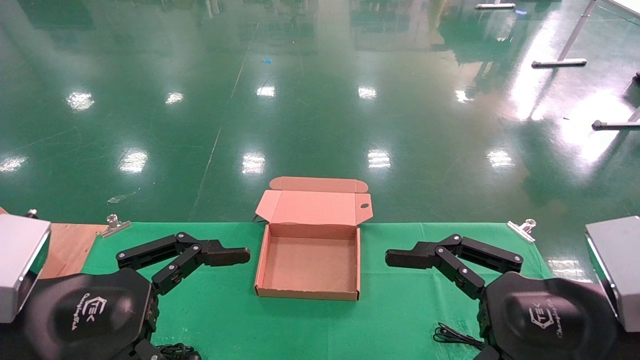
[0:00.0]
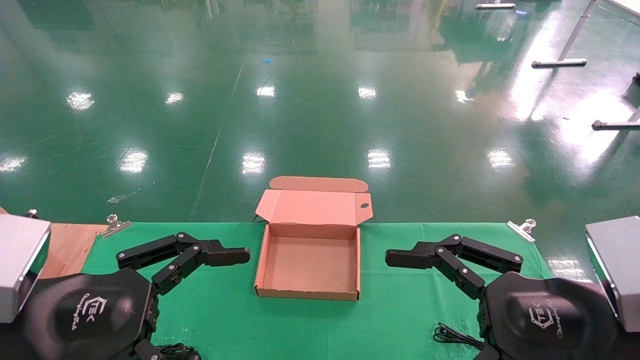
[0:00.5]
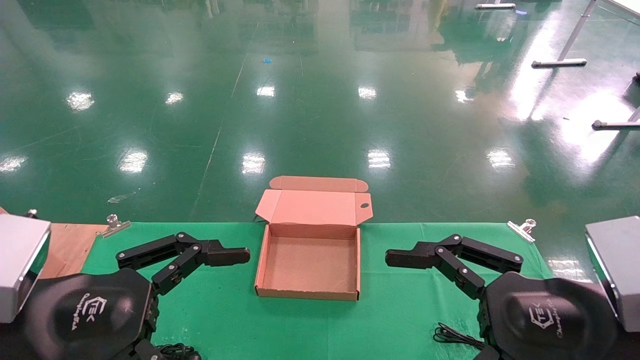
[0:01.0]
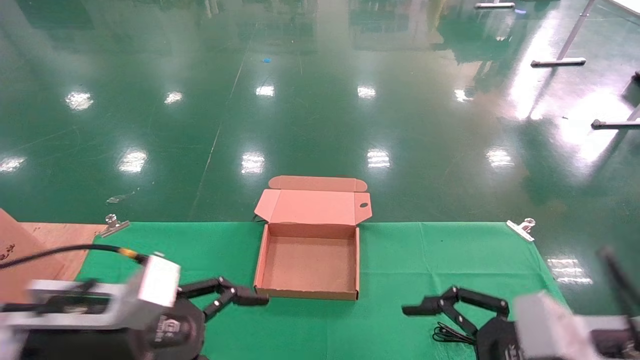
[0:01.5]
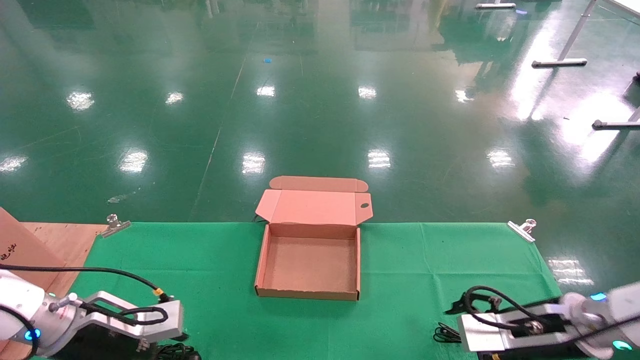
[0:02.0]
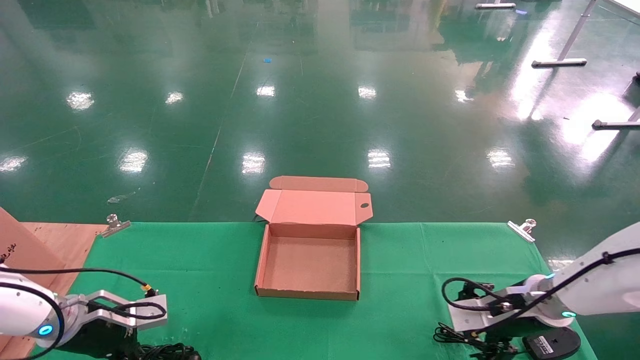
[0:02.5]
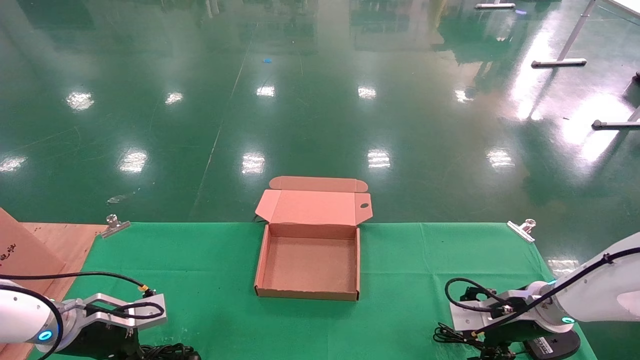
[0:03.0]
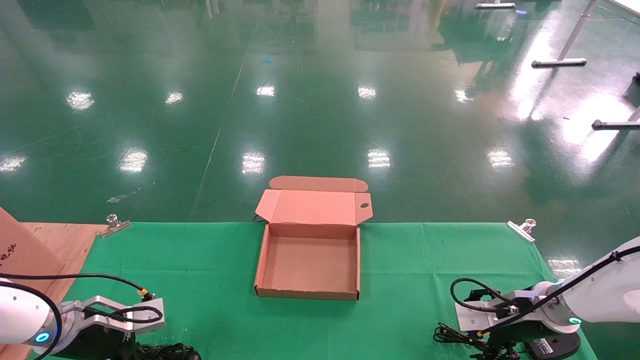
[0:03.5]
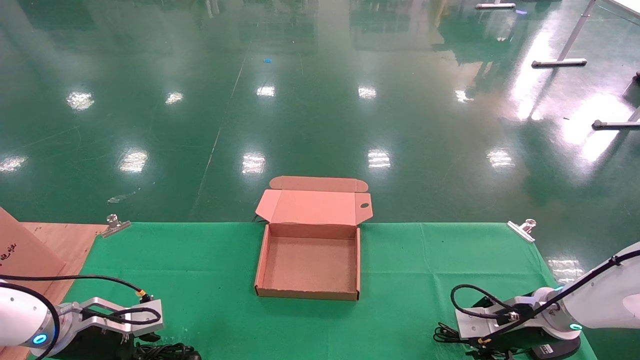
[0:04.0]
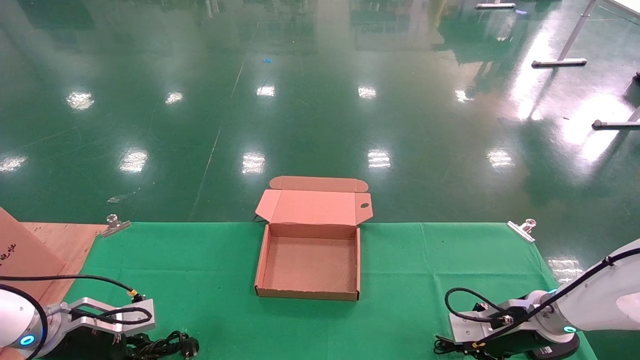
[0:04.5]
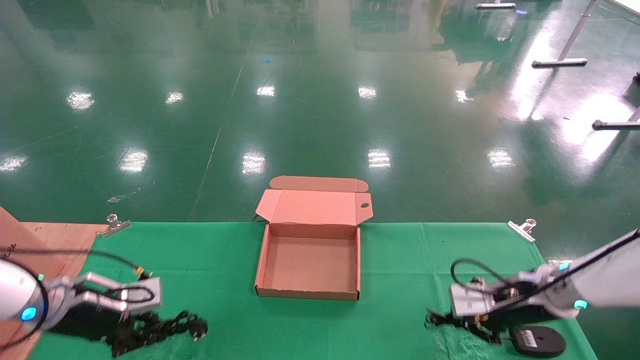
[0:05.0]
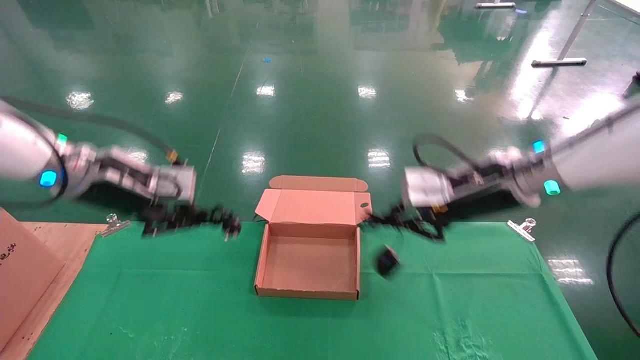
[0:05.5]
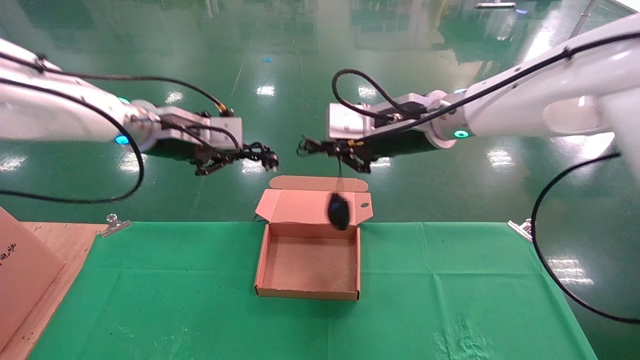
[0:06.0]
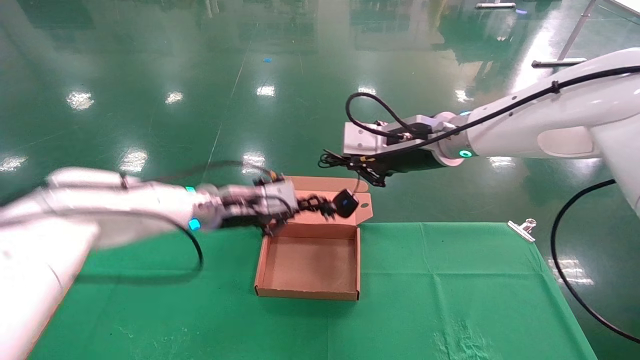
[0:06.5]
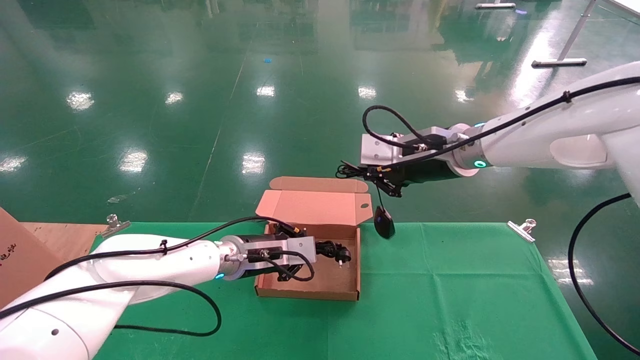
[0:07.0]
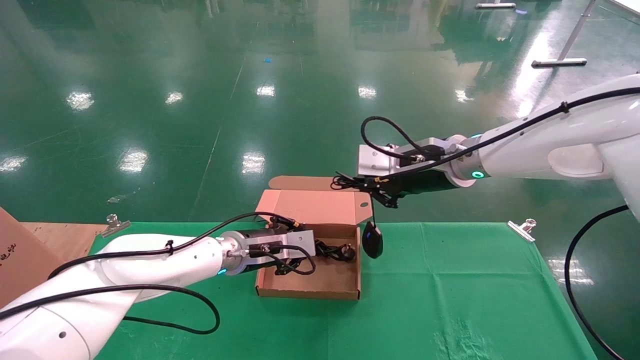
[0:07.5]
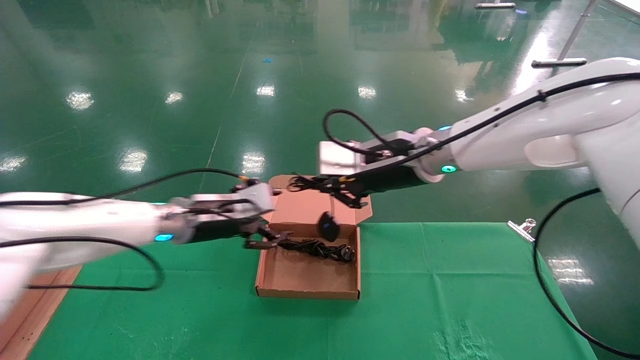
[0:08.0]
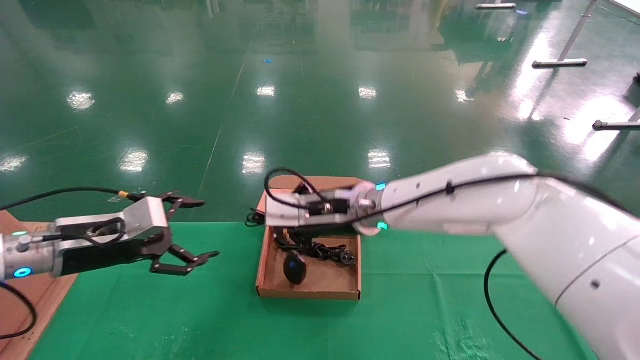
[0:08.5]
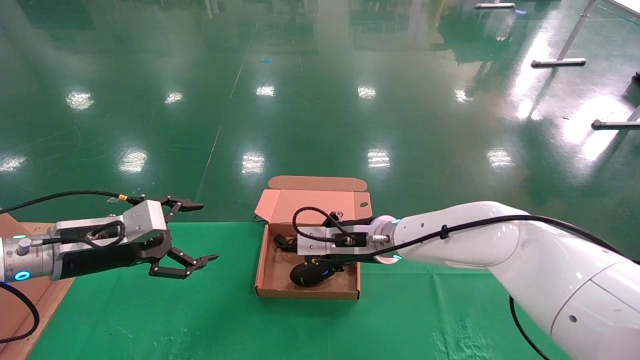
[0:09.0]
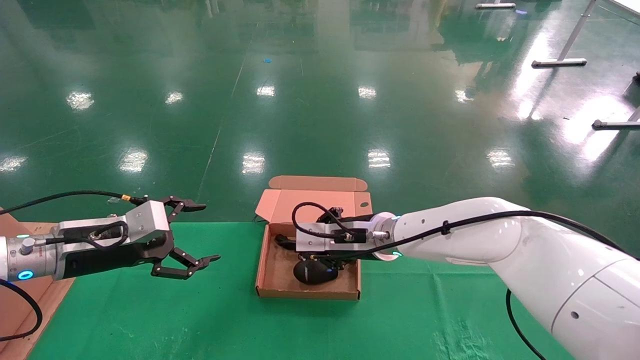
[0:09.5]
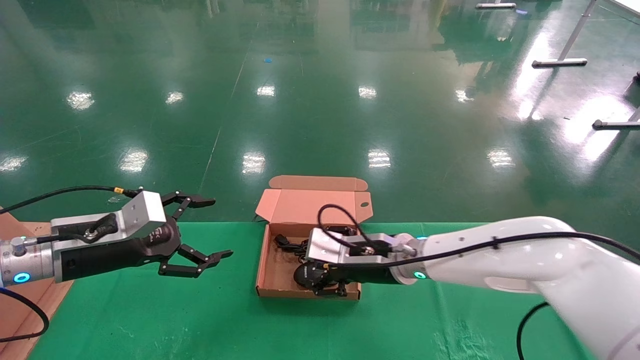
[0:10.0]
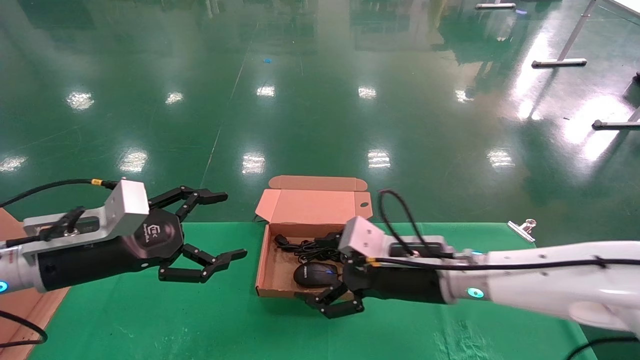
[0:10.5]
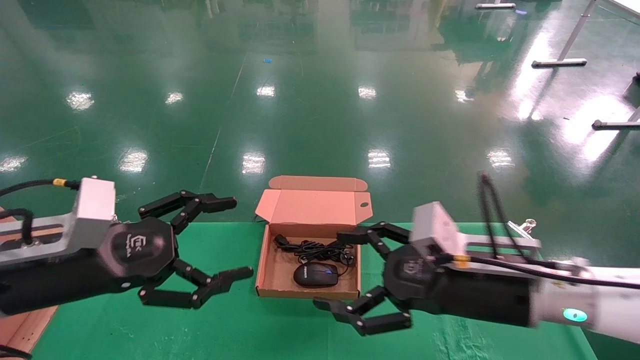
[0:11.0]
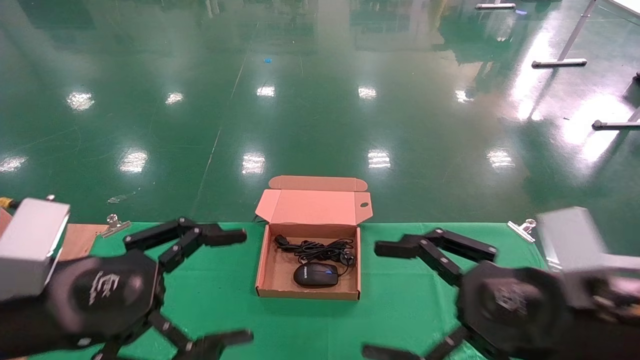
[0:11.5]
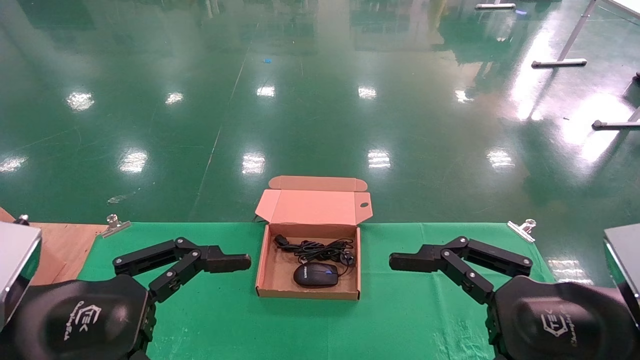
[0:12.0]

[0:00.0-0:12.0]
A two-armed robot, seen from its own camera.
Step, 0:02.0 to 0:05.5: Grab and lift both the mouse and power cord from the accessory packaging area at the same time.
Step, 0:06.0 to 0:10.0: Place the mouse and power cord into the box.
0:00.0 to 0:02.0: The grippers both shift forward and downward by some 20 cm.
0:02.0 to 0:04.0: The right gripper shifts about 5 cm forward, and closes. Meanwhile the left gripper travels to the left by roughly 5 cm, and closes.
0:04.0 to 0:06.0: The left gripper shifts roughly 30 cm upward and to the right, and closes, while the right gripper moves upward and to the left, roughly 35 cm, and closes its fingers.
0:06.0 to 0:08.0: The left gripper goes roughly 15 cm downward, and opens. Meanwhile the right gripper shifts by some 5 cm.
0:08.0 to 0:10.0: The right gripper shifts some 15 cm downward, and opens up; the left gripper goes some 15 cm to the left and backward, and opens up.
0:10.0 to 0:12.0: The left gripper goes roughly 20 cm backward. Meanwhile the right gripper goes approximately 30 cm backward and to the right, and opens.
